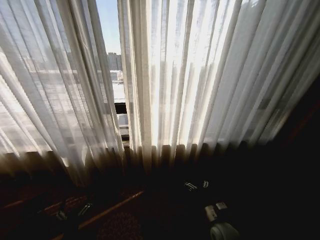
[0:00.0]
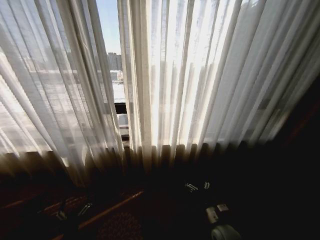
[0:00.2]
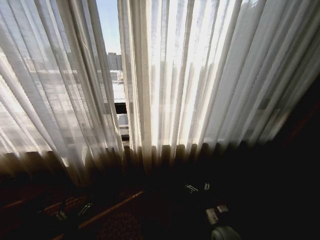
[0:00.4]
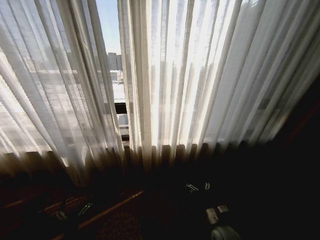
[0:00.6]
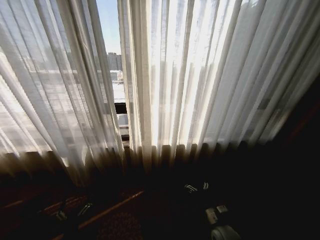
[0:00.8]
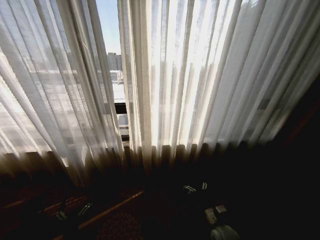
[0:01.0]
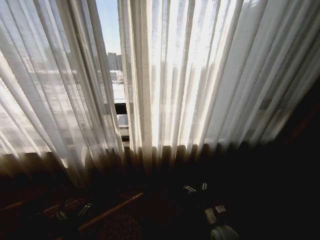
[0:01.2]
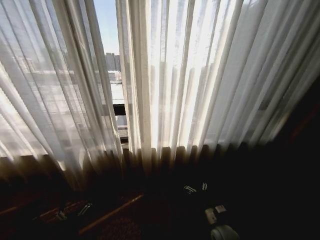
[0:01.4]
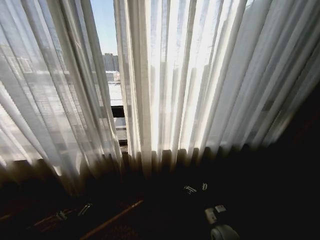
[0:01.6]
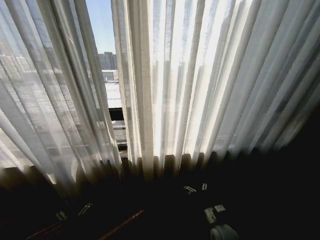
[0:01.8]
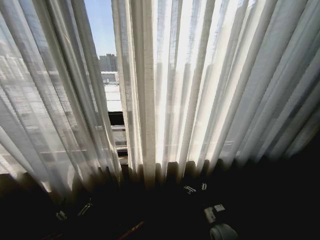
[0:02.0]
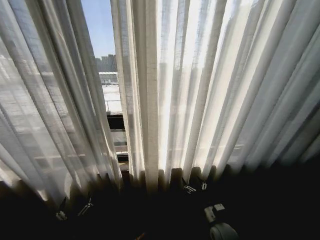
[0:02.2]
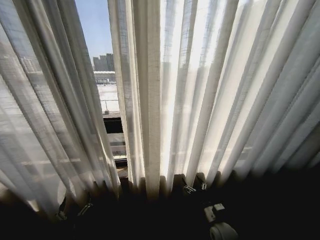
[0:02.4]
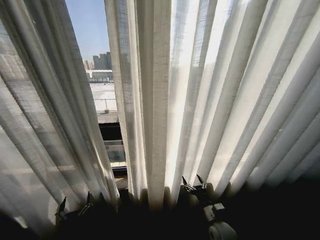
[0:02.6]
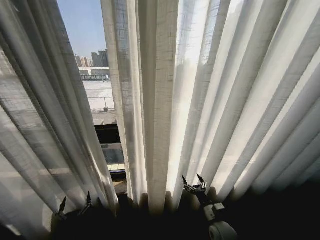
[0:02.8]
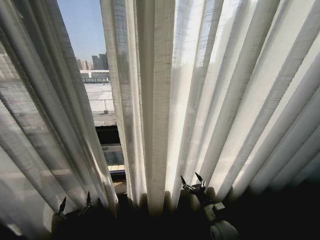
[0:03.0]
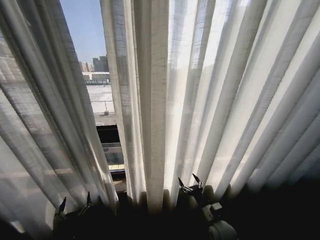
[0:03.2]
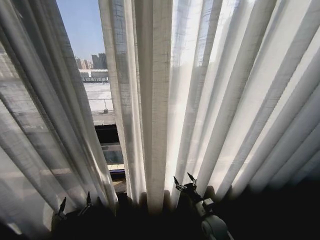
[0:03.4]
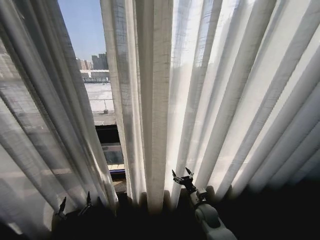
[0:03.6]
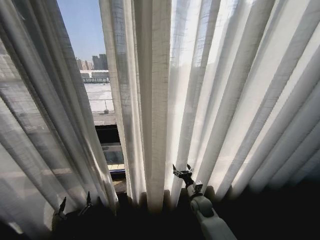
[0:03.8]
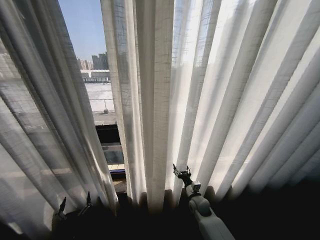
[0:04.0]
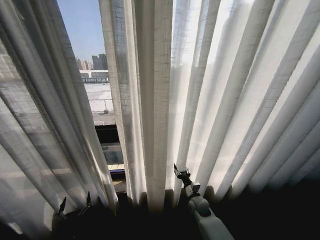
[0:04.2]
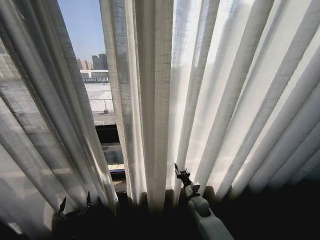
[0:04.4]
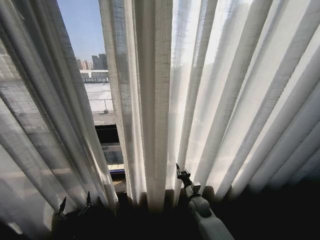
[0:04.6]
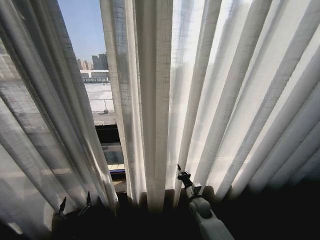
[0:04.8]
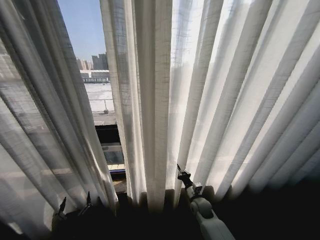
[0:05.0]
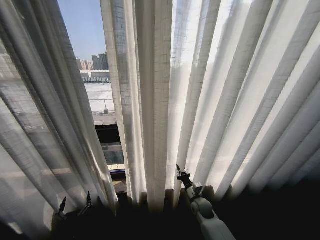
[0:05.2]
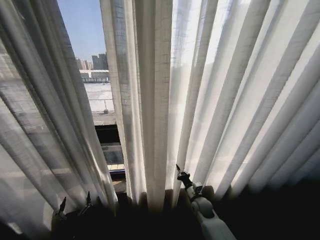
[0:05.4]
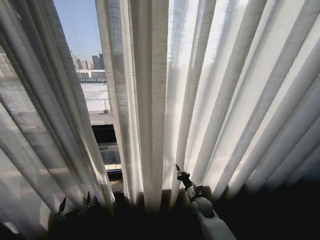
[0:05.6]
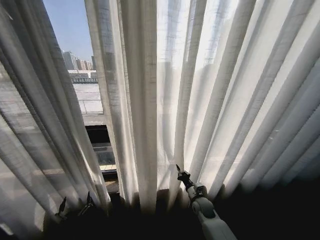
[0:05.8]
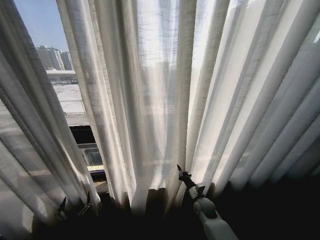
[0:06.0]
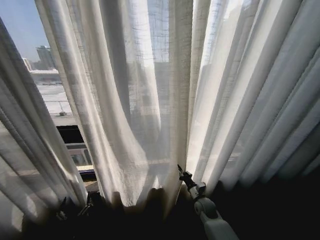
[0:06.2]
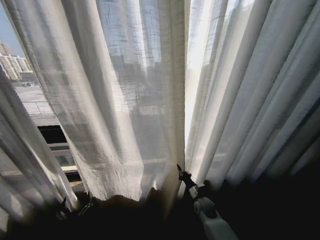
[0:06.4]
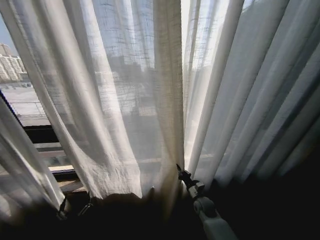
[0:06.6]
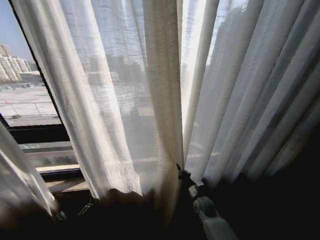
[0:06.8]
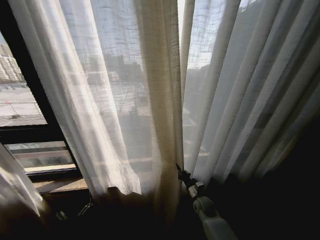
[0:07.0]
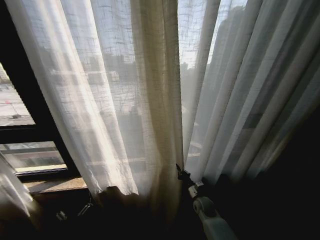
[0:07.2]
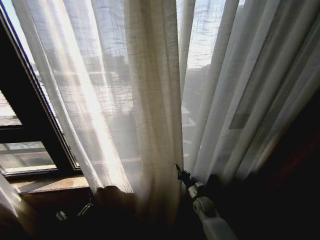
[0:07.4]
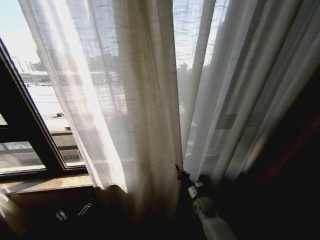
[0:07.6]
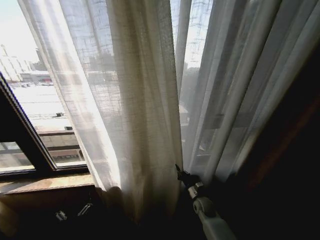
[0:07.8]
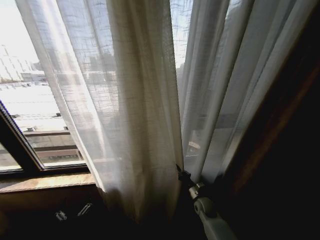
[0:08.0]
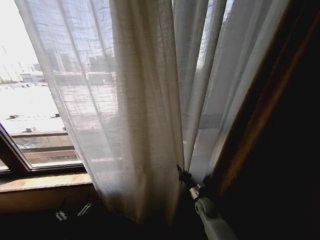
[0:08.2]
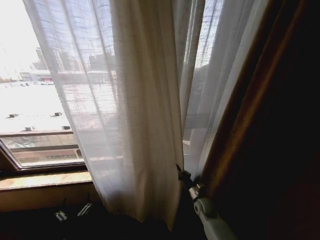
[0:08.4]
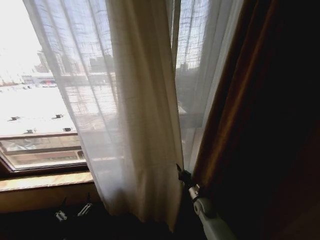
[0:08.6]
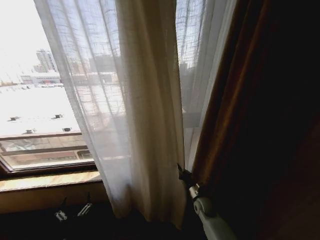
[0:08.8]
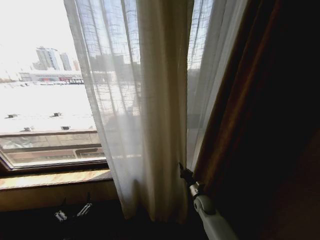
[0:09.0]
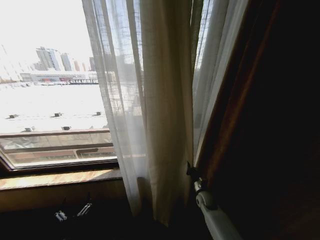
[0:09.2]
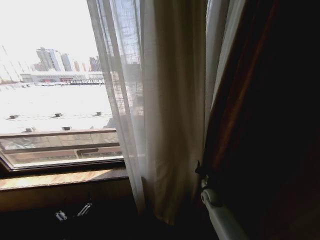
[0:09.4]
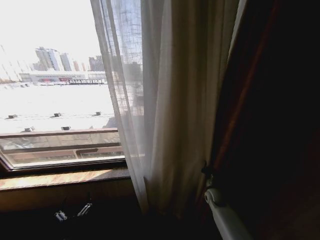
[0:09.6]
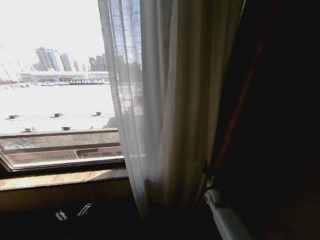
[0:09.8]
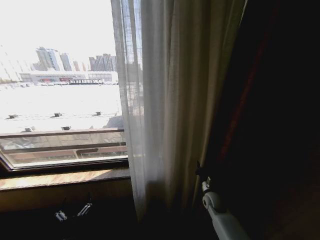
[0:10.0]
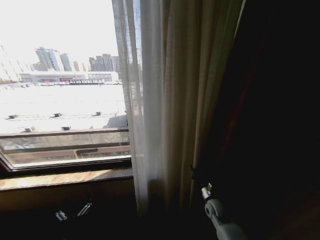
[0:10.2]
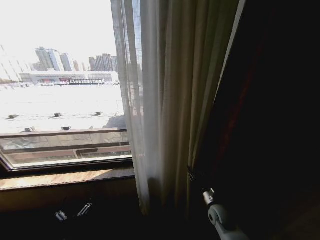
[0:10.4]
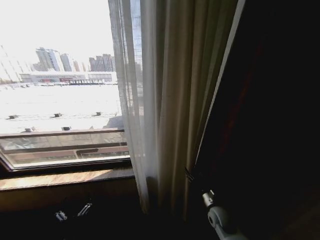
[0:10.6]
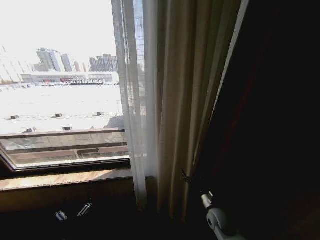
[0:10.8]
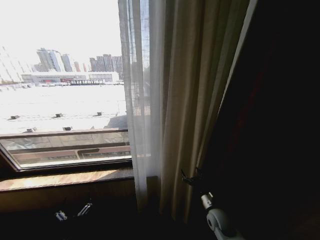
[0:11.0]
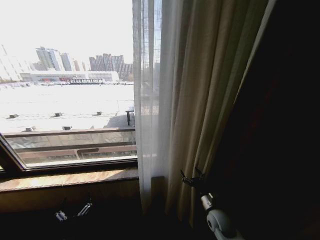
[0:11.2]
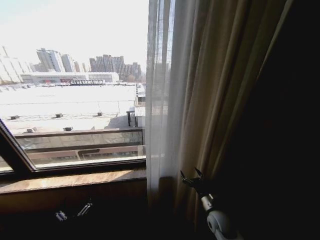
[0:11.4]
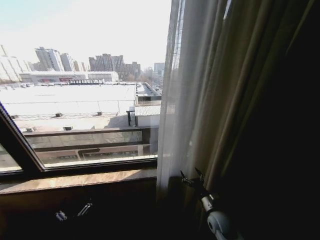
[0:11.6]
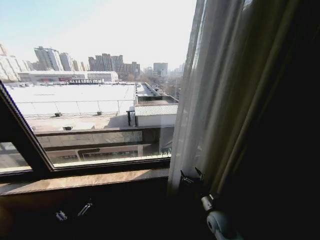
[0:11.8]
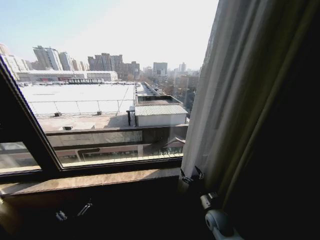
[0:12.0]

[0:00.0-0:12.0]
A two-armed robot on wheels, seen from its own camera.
Task of the whole recording: Open the curtains by pulling them apart, changing their state from closed to fully open.
0:03.0 to 0:04.4: The right gripper goes some 15 cm forward and to the left, and closes.
0:04.4 to 0:06.0: The right gripper closes its fingers.
0:09.0 to 0:10.4: The right gripper shifts some 5 cm backward, and opens up.
0:10.4 to 0:12.0: The right gripper opens its fingers.

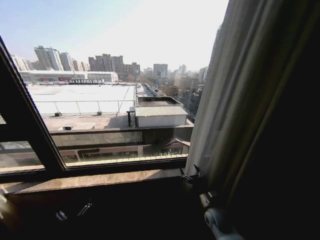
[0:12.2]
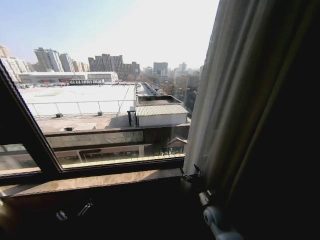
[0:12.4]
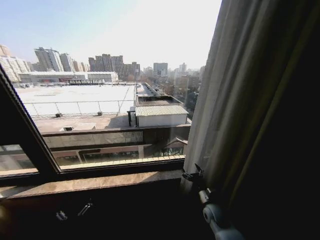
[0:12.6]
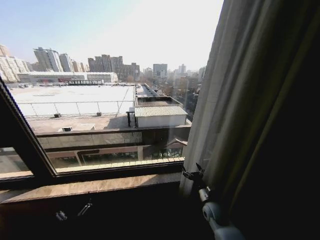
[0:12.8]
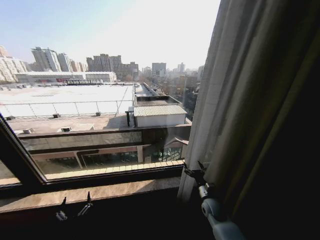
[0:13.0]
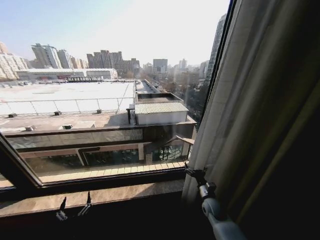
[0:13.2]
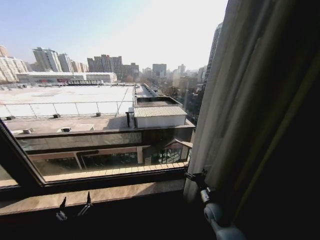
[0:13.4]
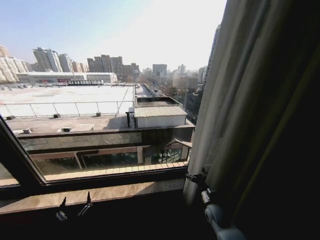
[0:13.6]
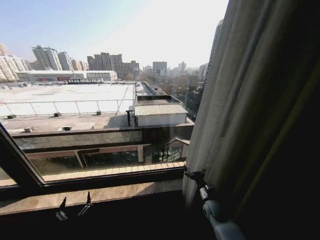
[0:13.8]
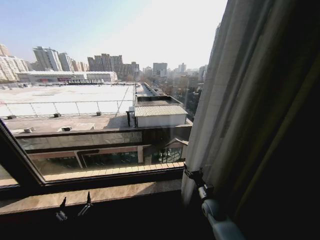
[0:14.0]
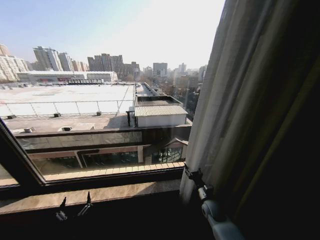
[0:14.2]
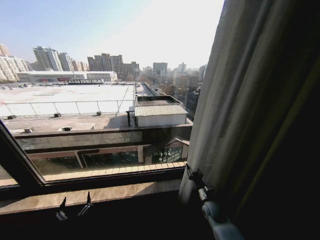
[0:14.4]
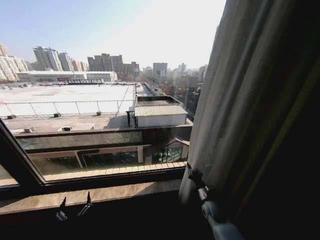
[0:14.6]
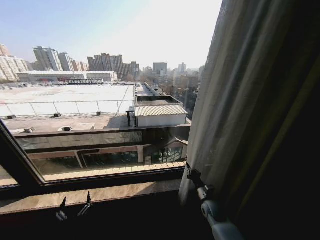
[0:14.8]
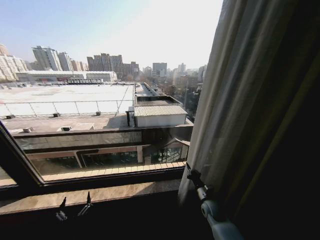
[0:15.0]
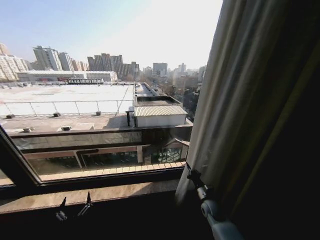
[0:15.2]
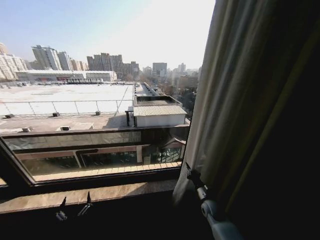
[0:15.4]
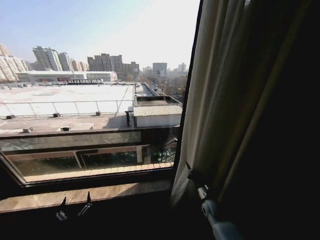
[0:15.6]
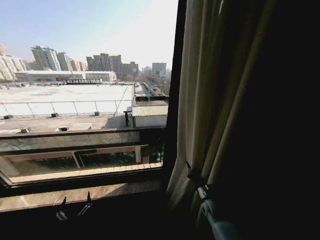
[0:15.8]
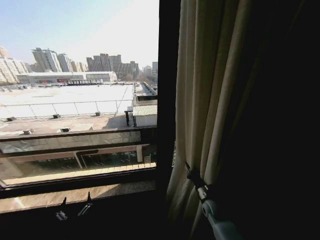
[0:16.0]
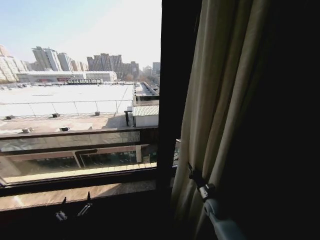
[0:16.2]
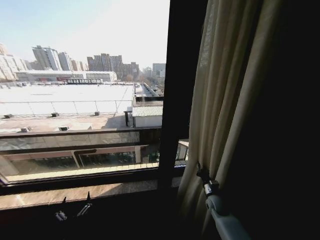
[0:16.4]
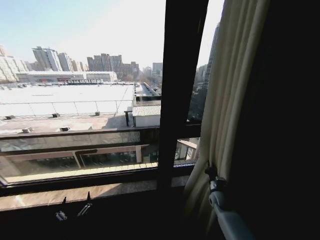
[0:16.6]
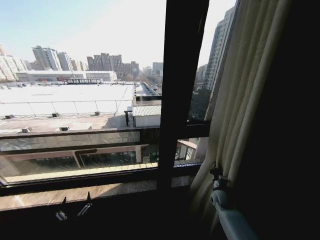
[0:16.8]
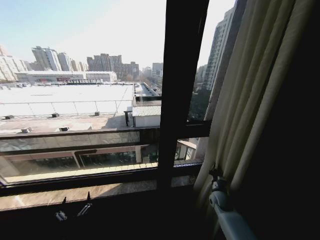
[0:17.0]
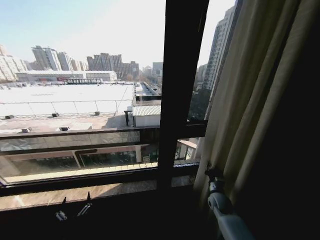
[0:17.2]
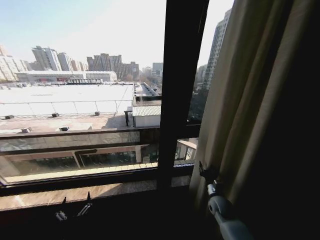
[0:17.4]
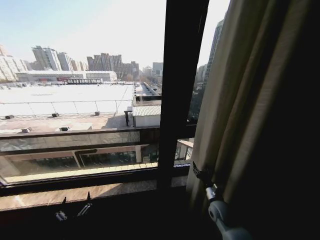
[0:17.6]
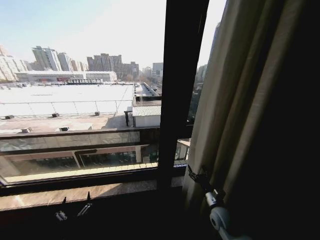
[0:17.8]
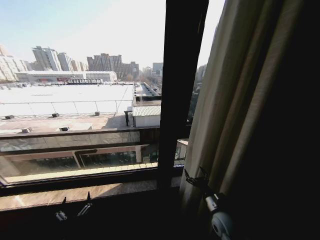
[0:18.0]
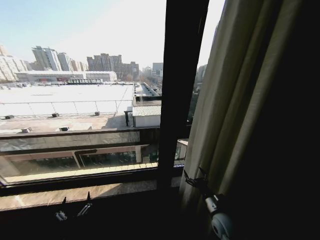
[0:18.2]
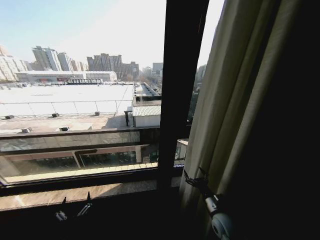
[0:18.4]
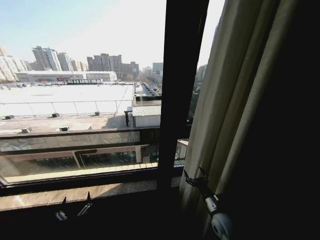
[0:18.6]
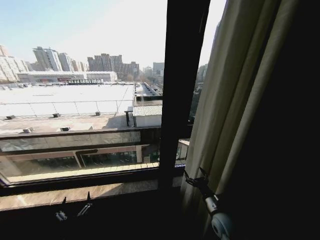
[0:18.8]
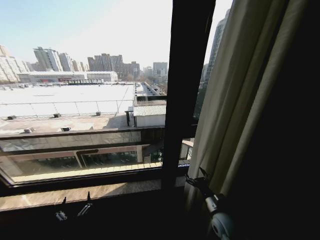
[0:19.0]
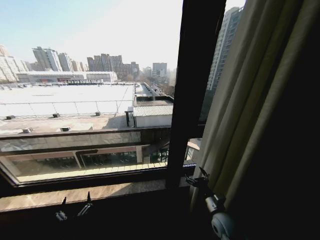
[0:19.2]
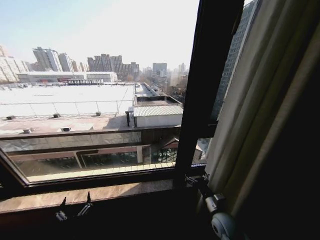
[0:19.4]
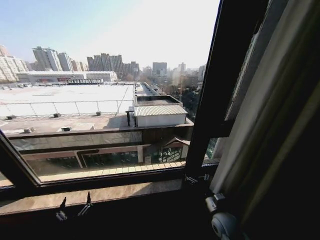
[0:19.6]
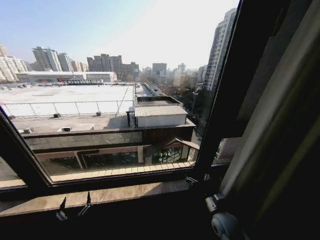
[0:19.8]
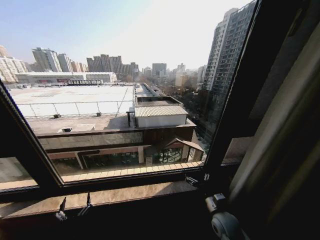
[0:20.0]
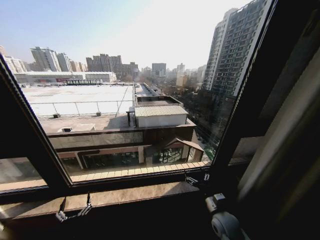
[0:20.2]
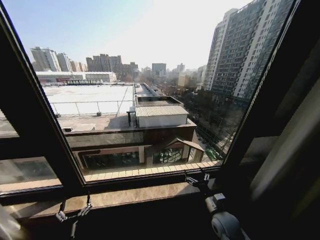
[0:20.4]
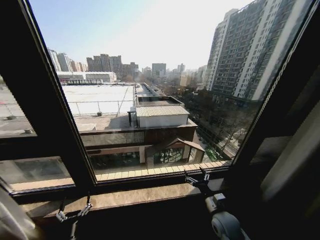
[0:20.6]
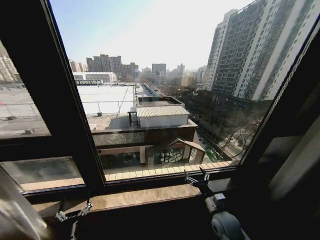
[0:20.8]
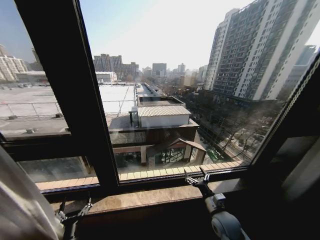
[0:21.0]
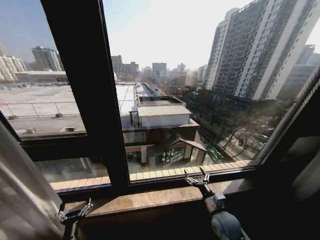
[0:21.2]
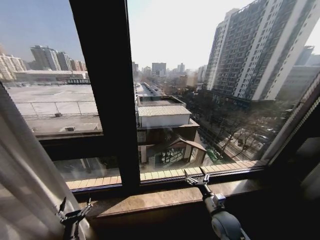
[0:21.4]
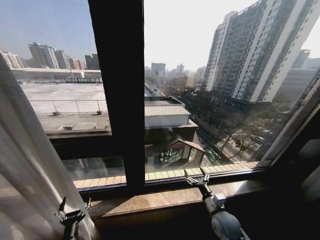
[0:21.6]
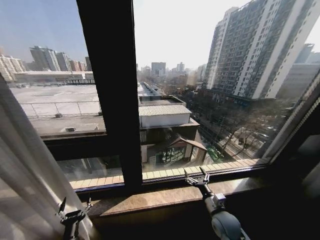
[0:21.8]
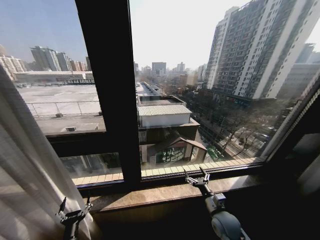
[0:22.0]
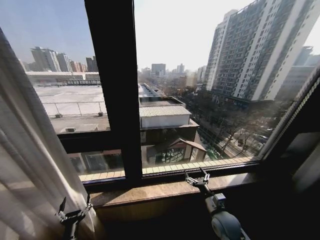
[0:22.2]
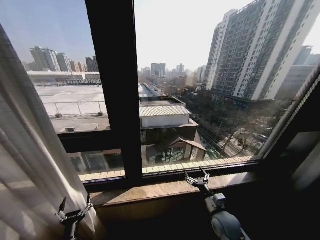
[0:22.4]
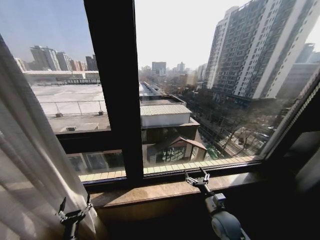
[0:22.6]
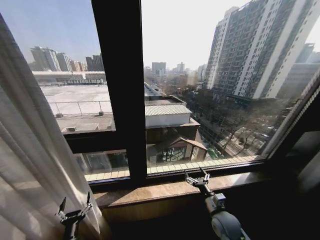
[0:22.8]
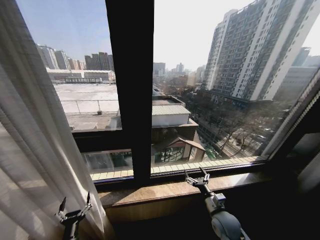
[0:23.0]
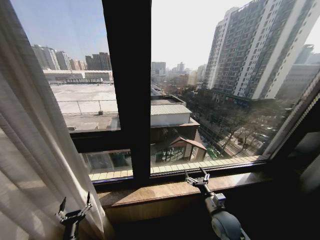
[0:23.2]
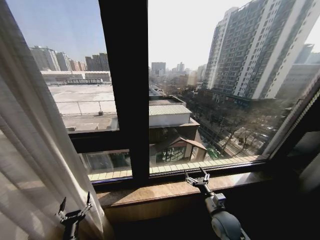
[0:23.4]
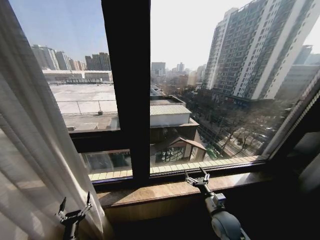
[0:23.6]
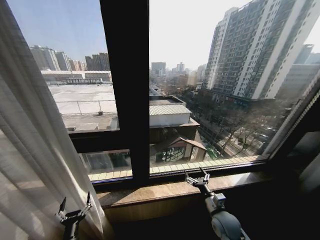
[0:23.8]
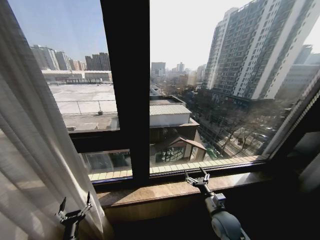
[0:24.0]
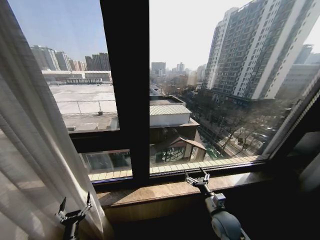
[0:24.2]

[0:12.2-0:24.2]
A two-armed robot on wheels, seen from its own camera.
Task of the whole recording: Open the curtains by pulling them apart, changing their state from closed to fully open.
0:13.8 to 0:15.2: The right gripper closes.
0:15.2 to 0:16.6: The right gripper heads to the right, covering approximately 5 cm.
0:16.6 to 0:18.2: The right gripper moves backward, to the left and upward, approximately 15 cm, and opens its fingers.
0:22.6 to 0:24.2: Neither gripper changes place.
